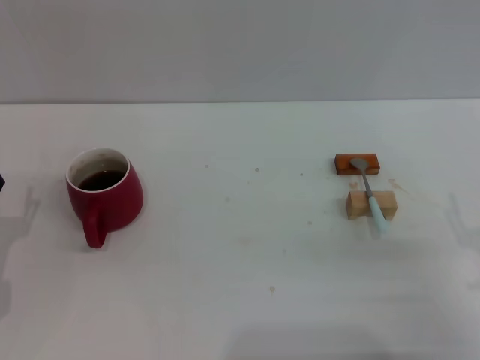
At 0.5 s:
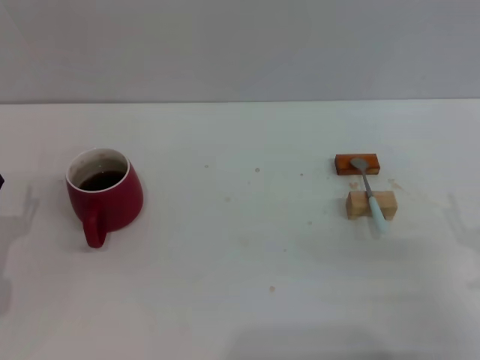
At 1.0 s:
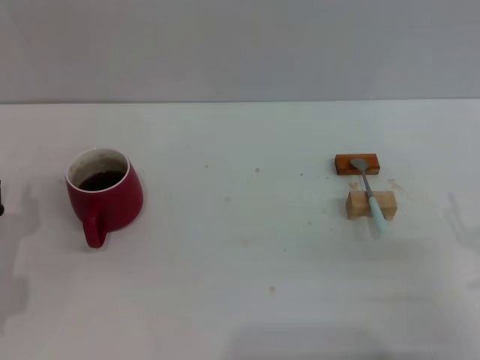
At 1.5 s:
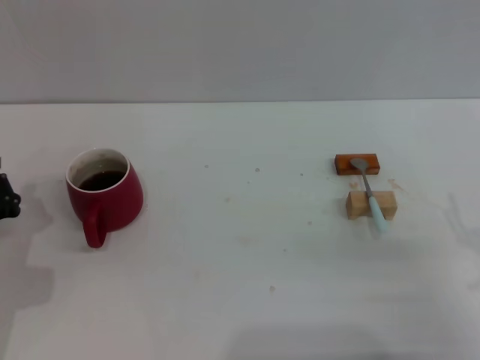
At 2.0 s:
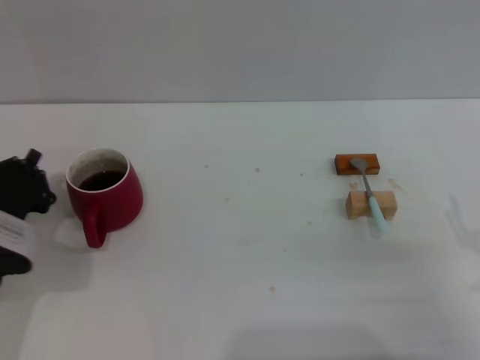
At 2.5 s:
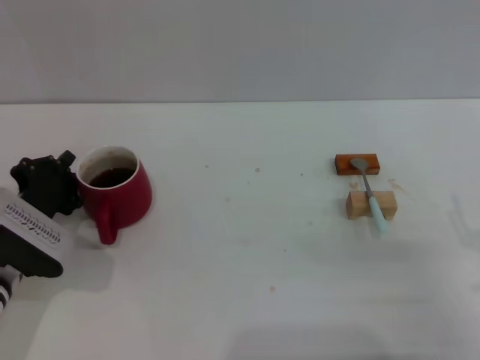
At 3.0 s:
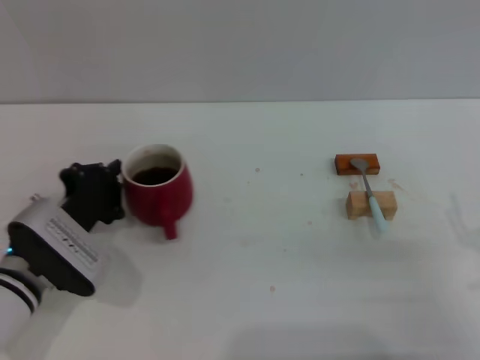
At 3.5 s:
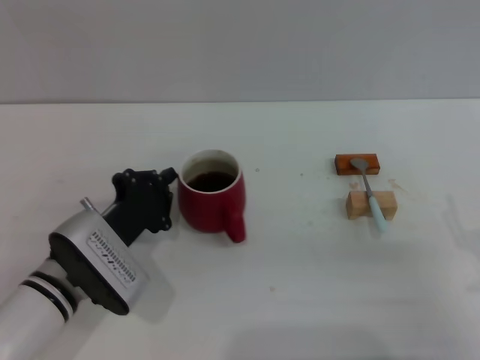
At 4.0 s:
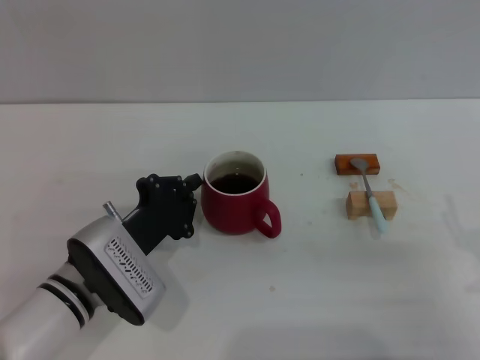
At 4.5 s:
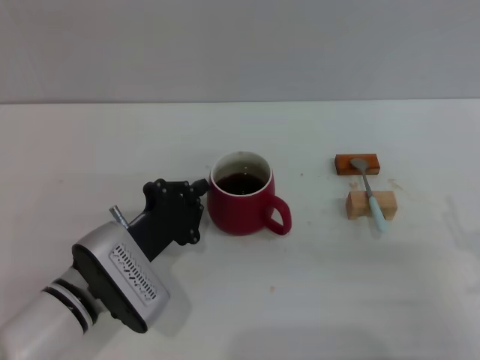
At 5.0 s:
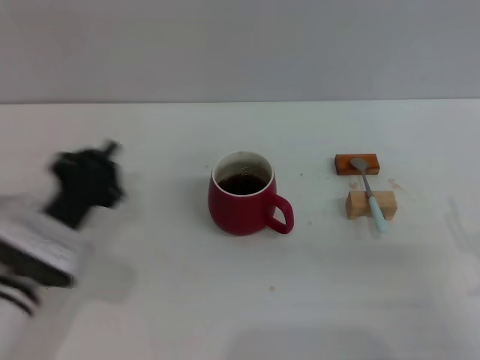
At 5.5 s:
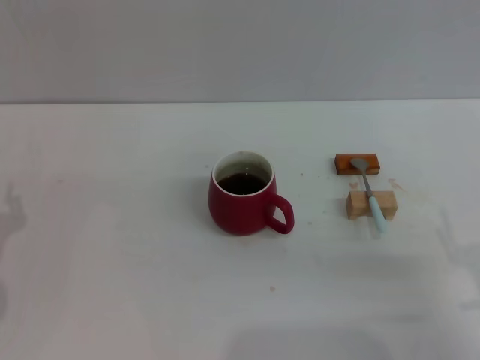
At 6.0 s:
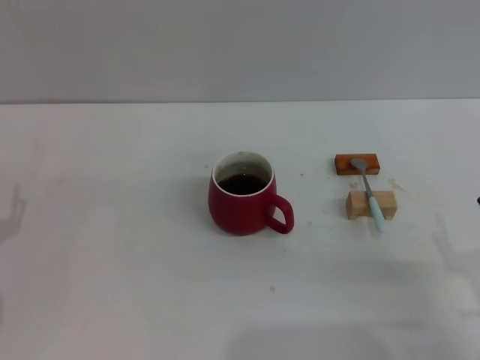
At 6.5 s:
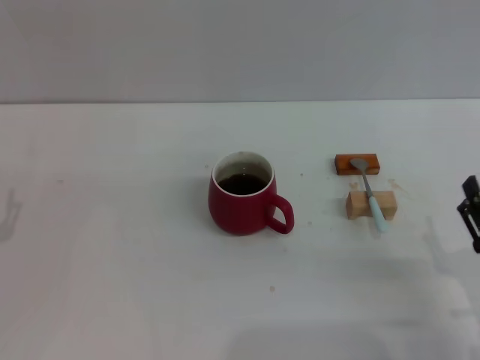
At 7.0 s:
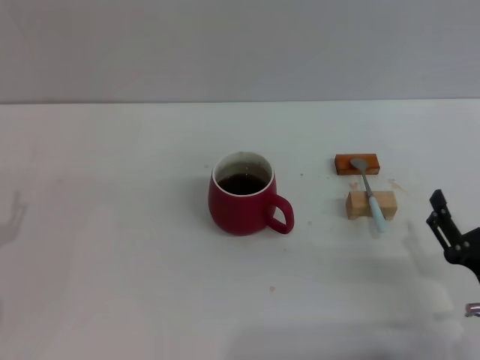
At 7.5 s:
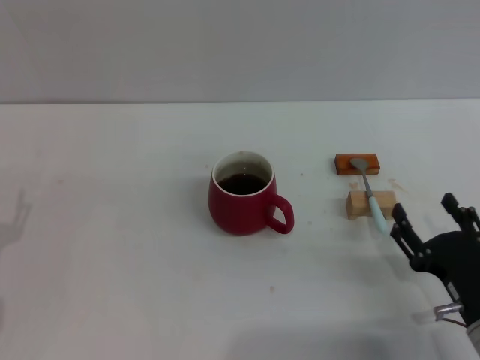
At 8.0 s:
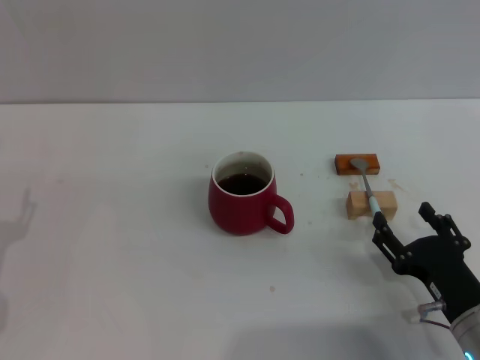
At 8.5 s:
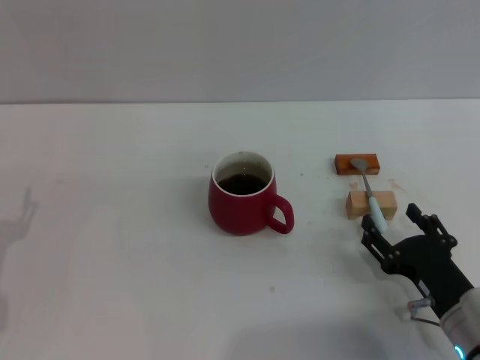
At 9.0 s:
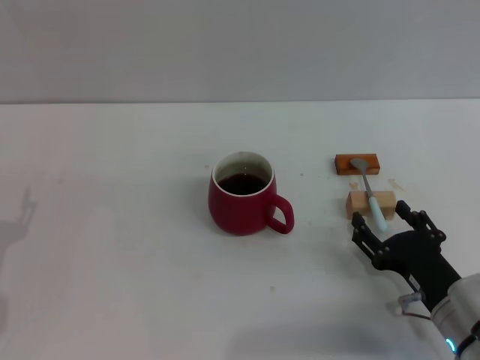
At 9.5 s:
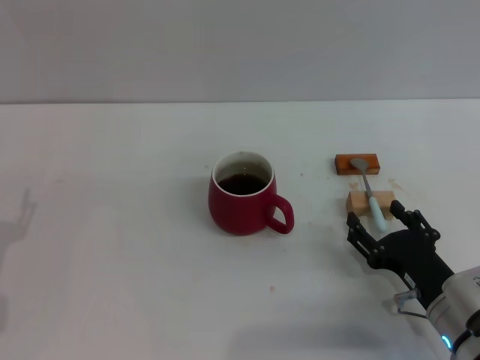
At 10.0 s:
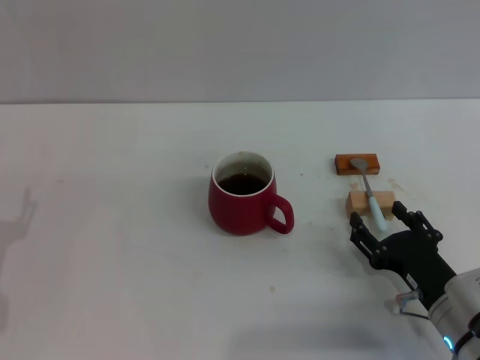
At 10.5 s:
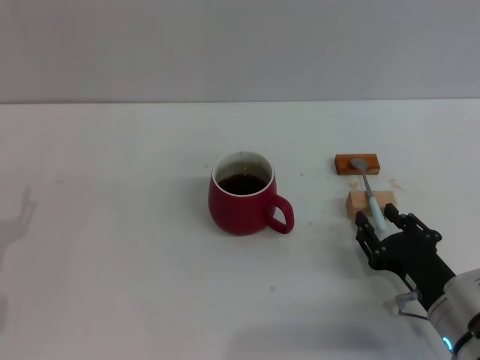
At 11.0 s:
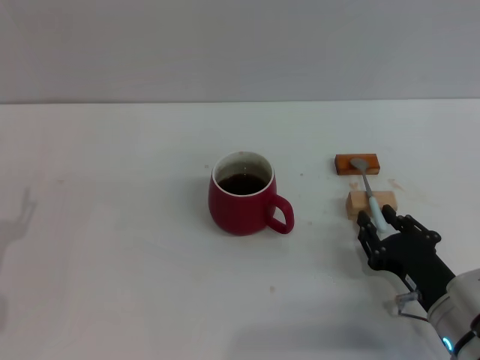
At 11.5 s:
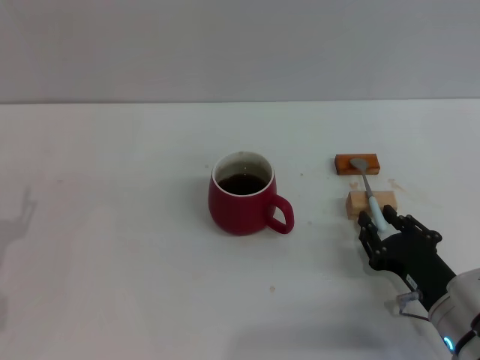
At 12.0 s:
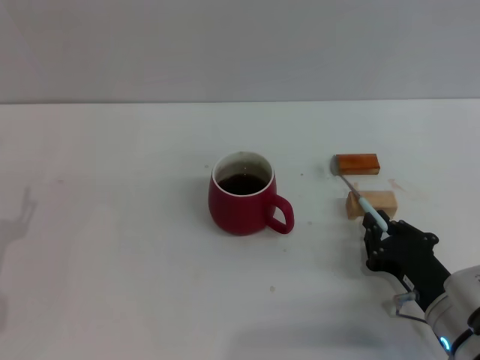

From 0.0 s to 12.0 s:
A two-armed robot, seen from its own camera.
Task of the whole recording: Move the red cup to the center, lift the blue spoon, stir it three times in the cup, and put the spoon into the cup.
Step, from 0.0 s to 4.5 s: Move the cup with coffee to the center of view with the left gripper.
From 0.0 s to 2.0 s: The left gripper moves about 5 cm, and closes up.
From 2.0 s to 4.0 s: The left gripper is displaced to the right by roughly 10 cm.
From 4.0 s to 6.0 s: The left gripper goes some 15 cm to the left, and opens.
From 6.0 s to 8.0 s: The right gripper changes place by roughly 5 cm.
From 8.0 s to 10.0 s: The grippers make only small movements.
From 10.0 s to 12.0 s: The right gripper closes its fingers.

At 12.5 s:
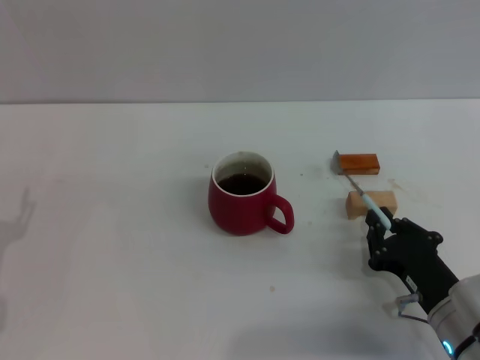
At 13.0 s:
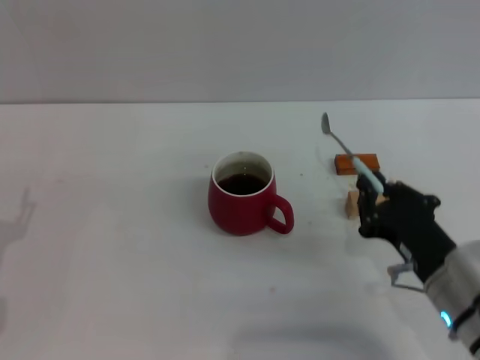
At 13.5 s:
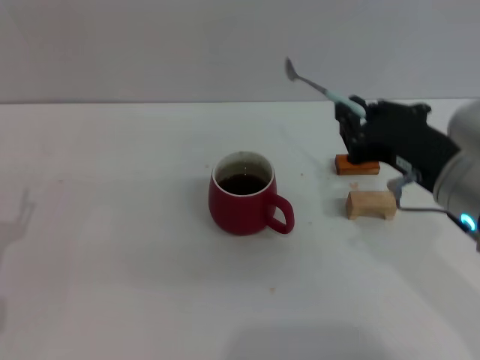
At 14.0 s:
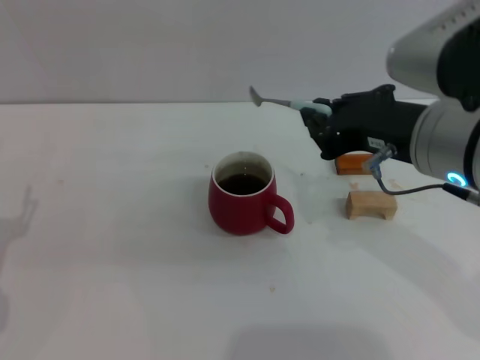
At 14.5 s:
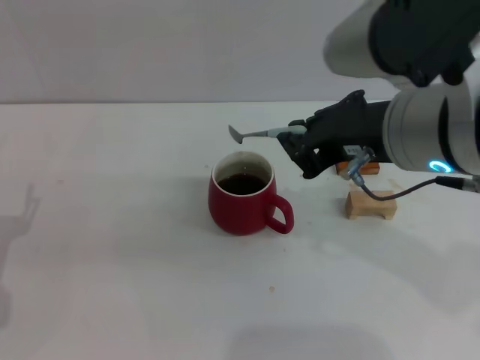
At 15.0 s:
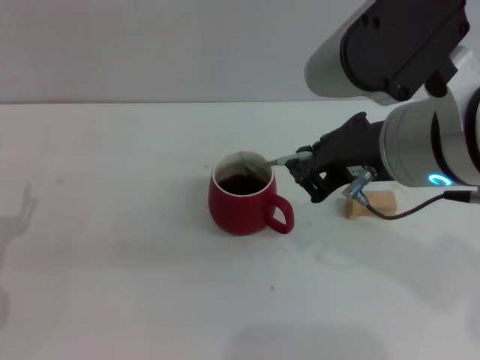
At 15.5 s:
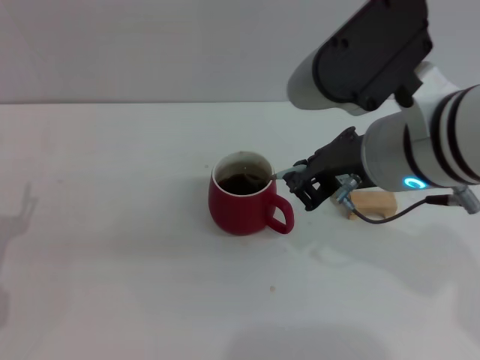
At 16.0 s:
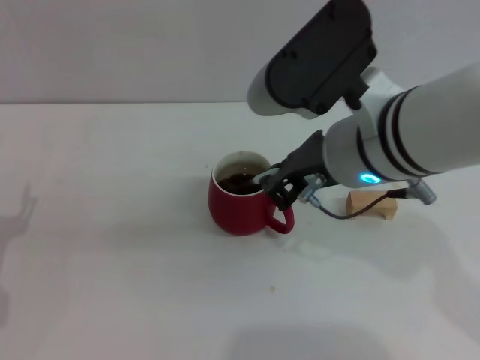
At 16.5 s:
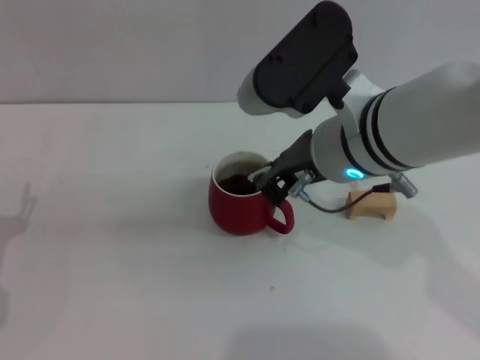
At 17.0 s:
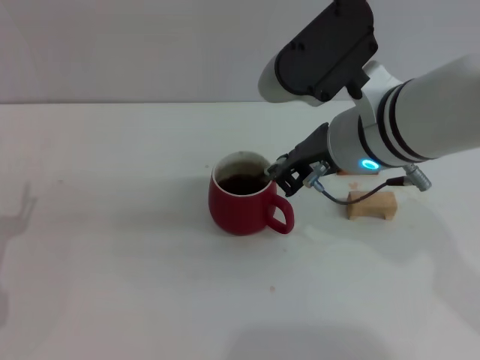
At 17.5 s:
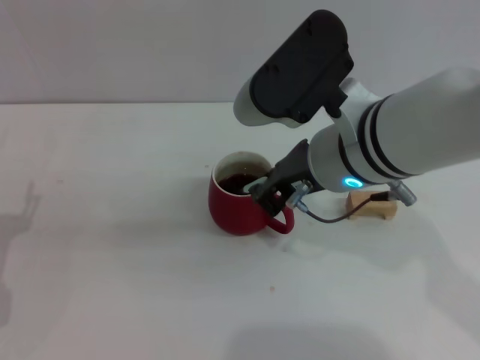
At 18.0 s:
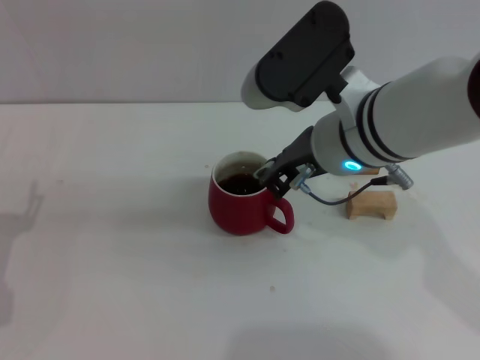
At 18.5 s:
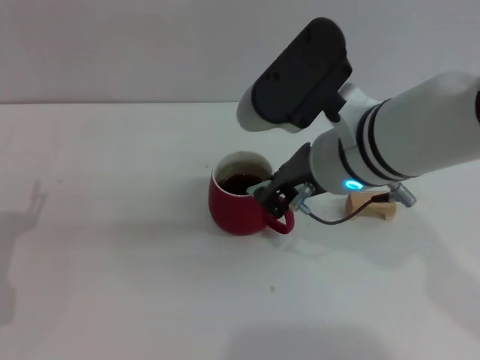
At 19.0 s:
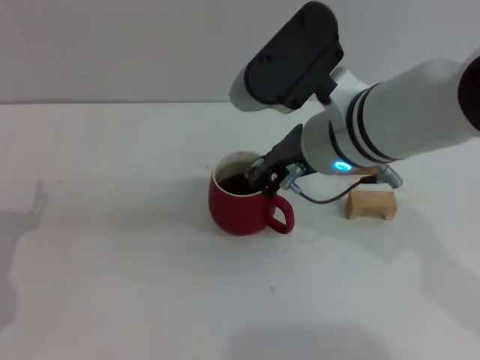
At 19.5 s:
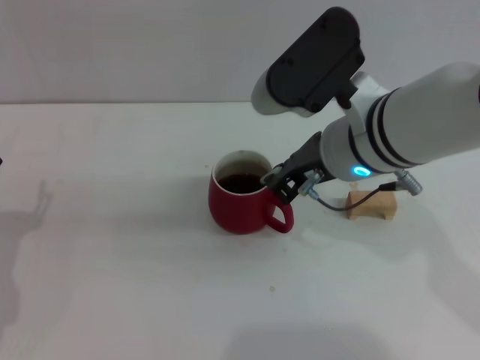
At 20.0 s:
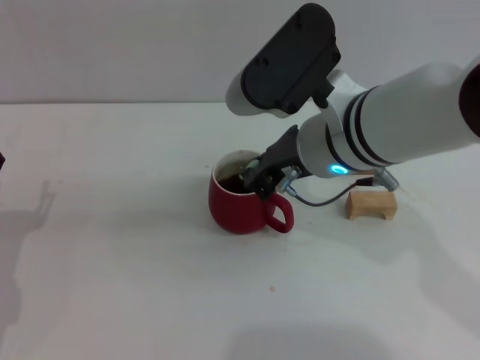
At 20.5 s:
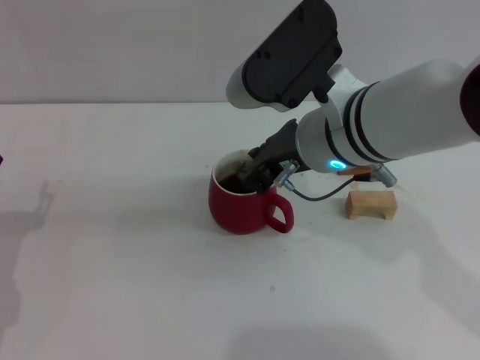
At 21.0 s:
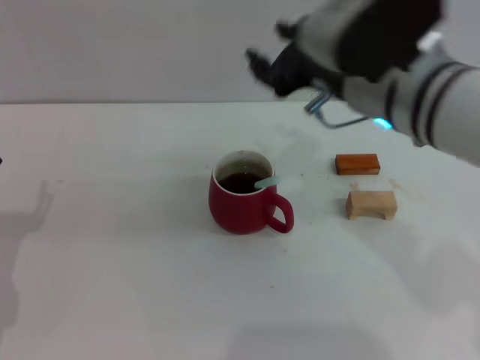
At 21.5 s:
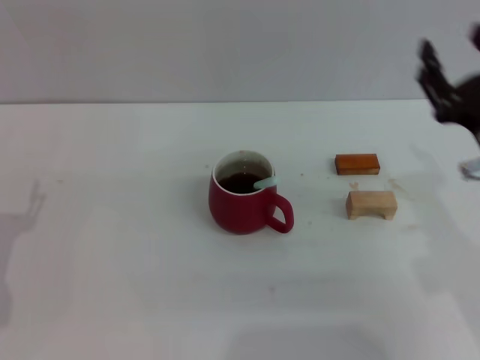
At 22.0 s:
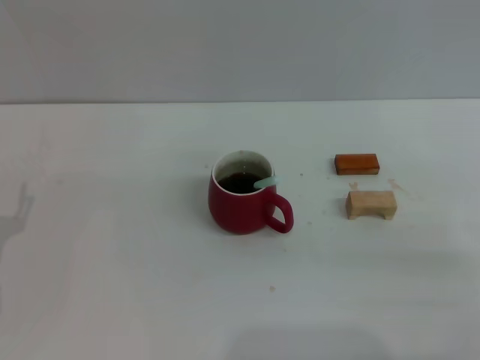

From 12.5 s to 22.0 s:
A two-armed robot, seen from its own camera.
Task of the whole recording: Move the red cup to the center, lift the blue spoon, stir it three times in the cup, and put the spoon into the cup.
Step, from 13.0 s to 20.5 s: Stir the coffee in the cup with the right gripper.
From 12.5 s to 14.5 s: The right gripper heads upward, covering roughly 25 cm.
From 14.5 s to 16.5 s: The right gripper shifts approximately 5 cm downward and forward.
From 16.5 s to 20.0 s: The grippers stay close to where they were, moving slightly.
From 20.0 s to 22.0 s: The right gripper heads to the right, backward and downward, covering roughly 30 cm, and opens.
